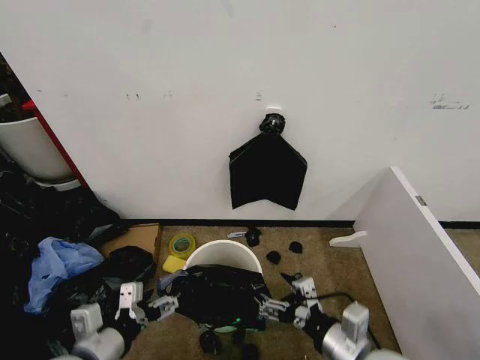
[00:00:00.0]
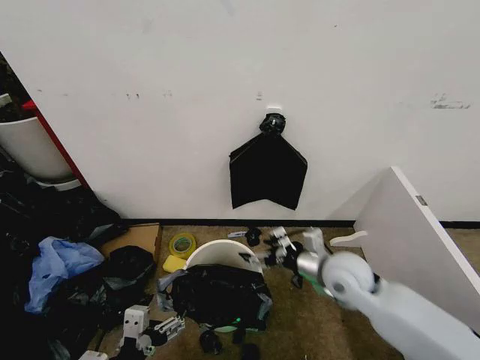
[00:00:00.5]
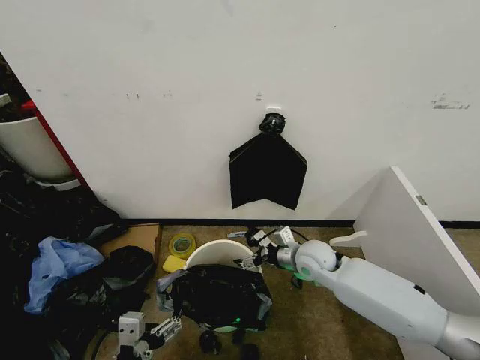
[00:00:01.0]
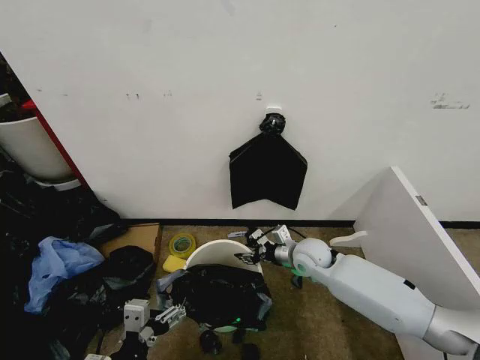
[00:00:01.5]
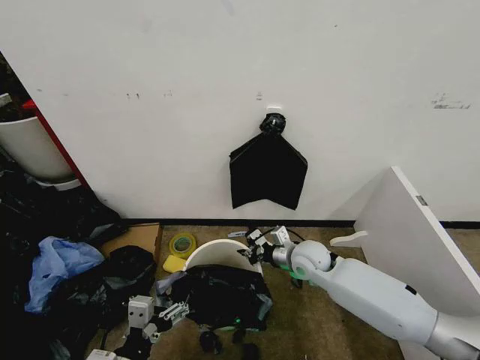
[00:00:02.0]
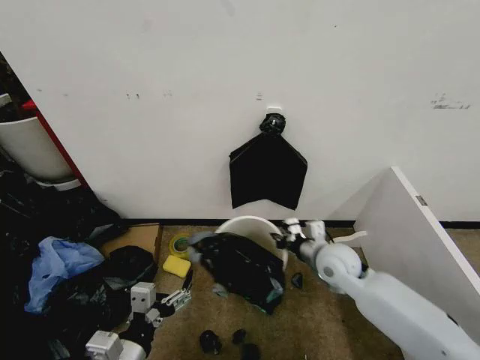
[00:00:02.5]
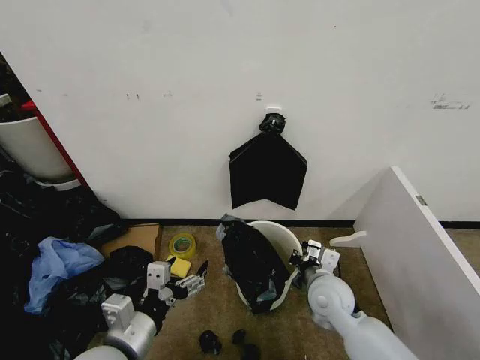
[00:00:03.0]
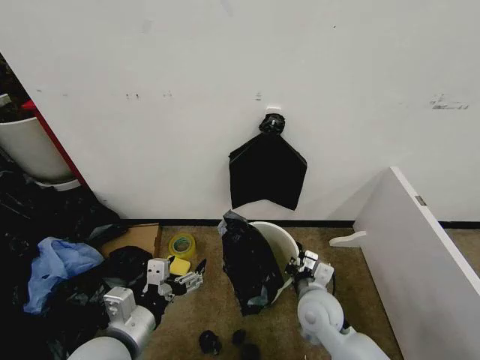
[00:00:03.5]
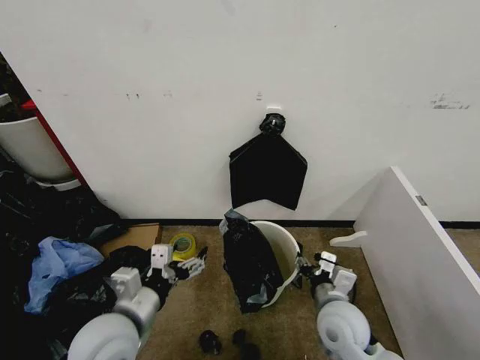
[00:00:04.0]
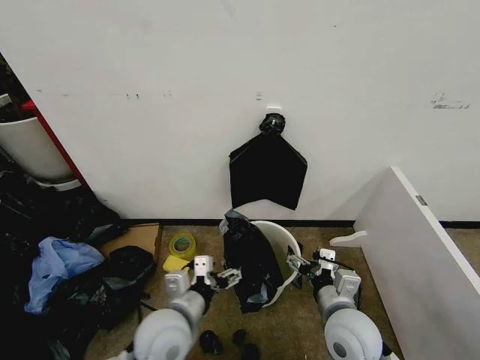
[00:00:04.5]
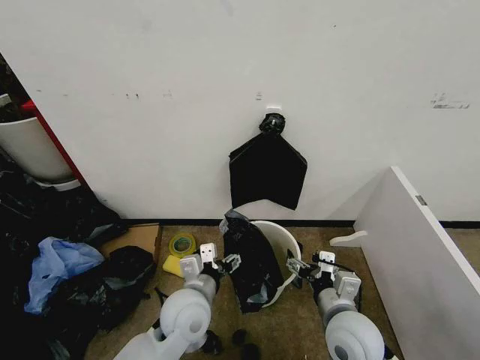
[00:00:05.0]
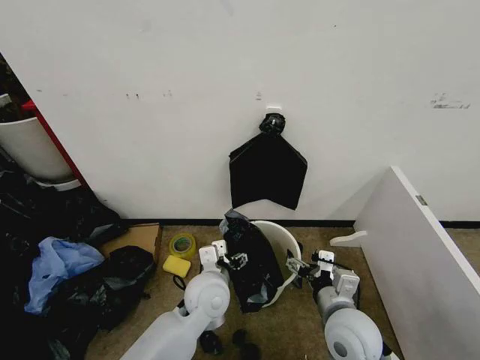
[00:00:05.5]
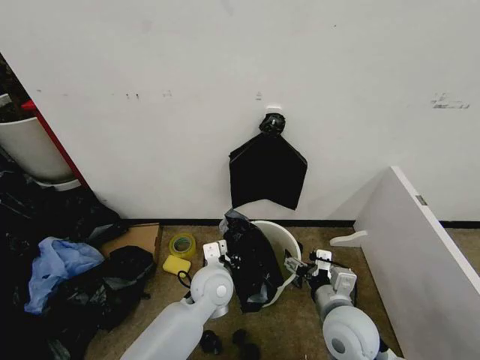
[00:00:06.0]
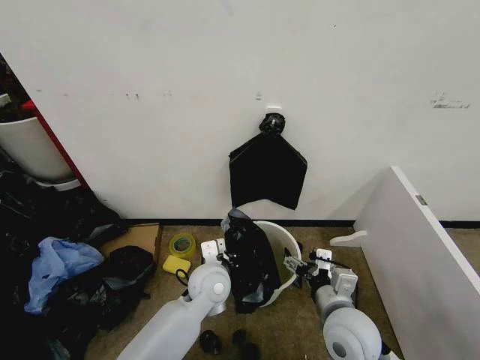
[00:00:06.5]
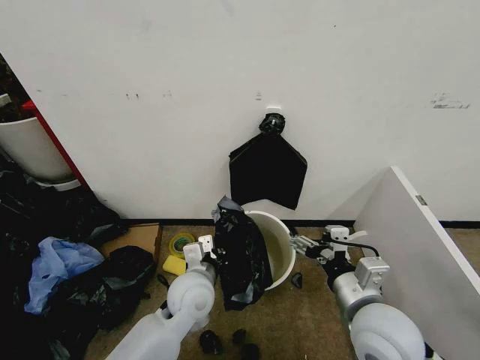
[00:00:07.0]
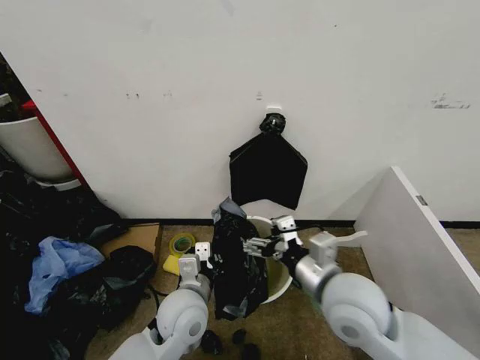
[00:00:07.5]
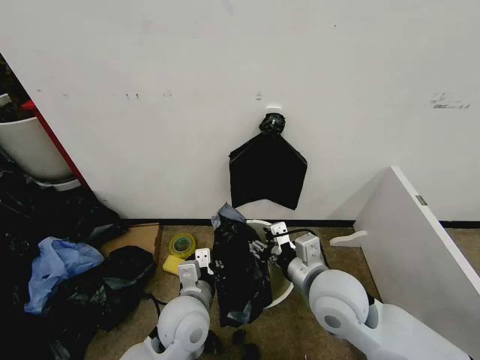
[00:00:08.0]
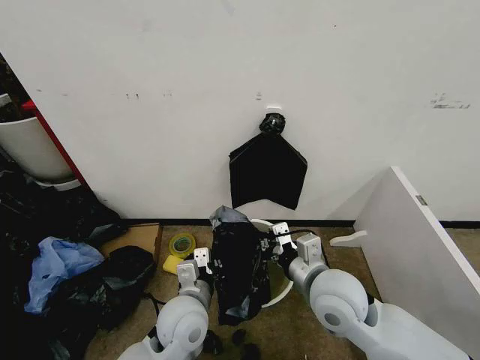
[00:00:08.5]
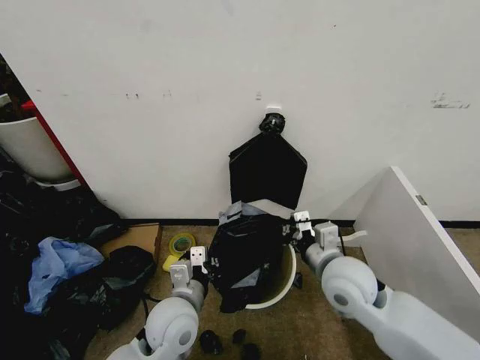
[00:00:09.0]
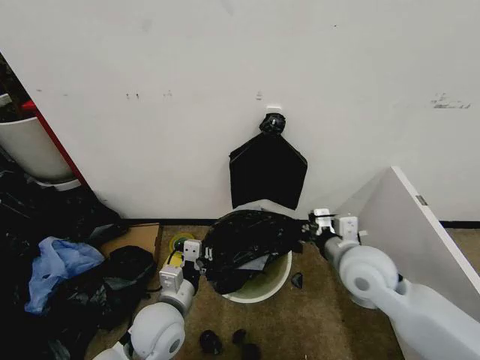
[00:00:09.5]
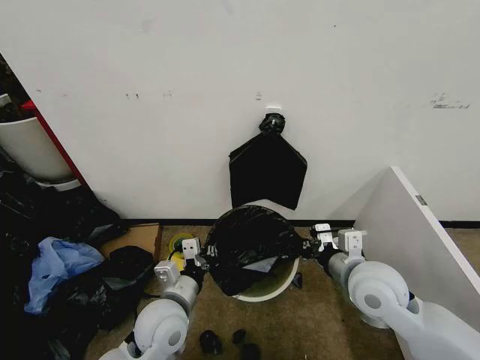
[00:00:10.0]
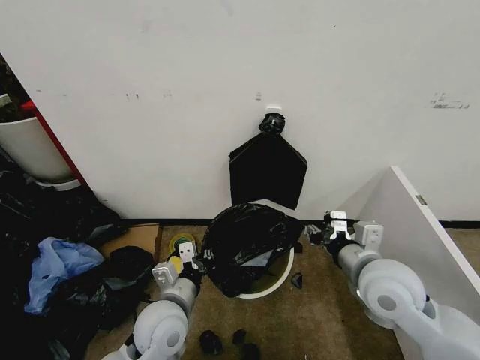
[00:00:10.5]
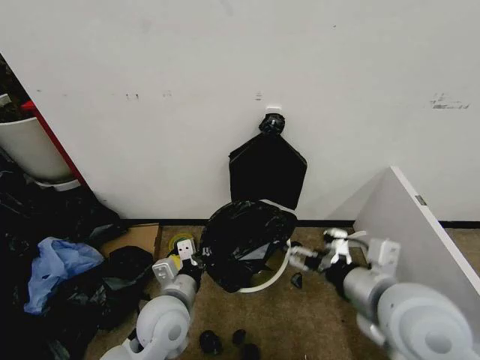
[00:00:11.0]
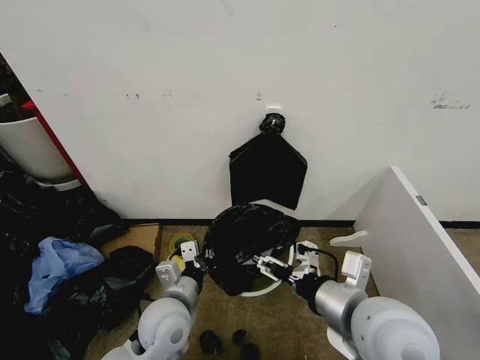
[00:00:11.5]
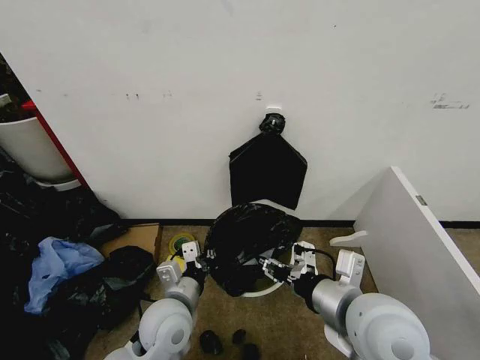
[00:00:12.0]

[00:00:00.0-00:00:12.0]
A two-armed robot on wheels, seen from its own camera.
Task of the whole recording: Place the garbage bag over the trash bin.
00:00:00.0 to 00:00:02.0: The right gripper heads forward, covering approximately 25 cm, and closes. Meanwhile the left gripper goes approximately 5 cm backward.
00:00:02.0 to 00:00:04.0: The right gripper goes roughly 15 cm backward, and opens; the left gripper travels forward and upward by approximately 10 cm.
00:00:04.0 to 00:00:06.0: The left gripper heads to the right, forward and downward, covering approximately 20 cm, and closes. Meanwhile the right gripper opens.
00:00:06.0 to 00:00:08.0: The right gripper goes roughly 10 cm upward, and closes. Meanwhile the left gripper travels backward by about 10 cm, and closes.
00:00:08.0 to 00:00:10.0: The right gripper moves to the right, approximately 10 cm, and closes.
00:00:10.0 to 00:00:12.0: The right gripper is displaced backward, upward and to the left by about 10 cm, and opens up.

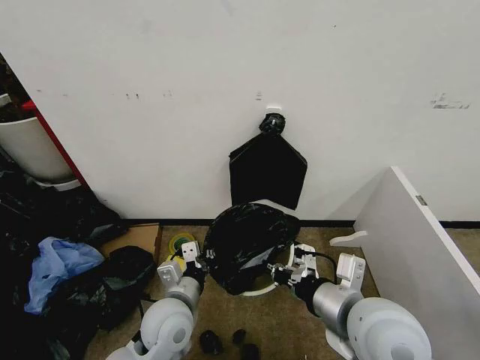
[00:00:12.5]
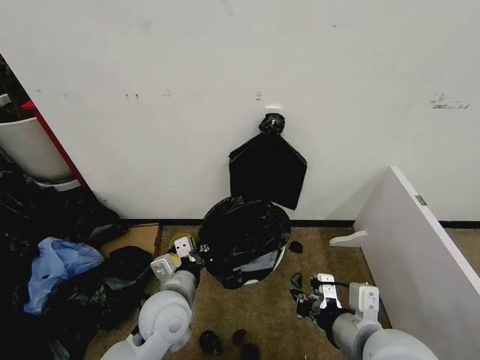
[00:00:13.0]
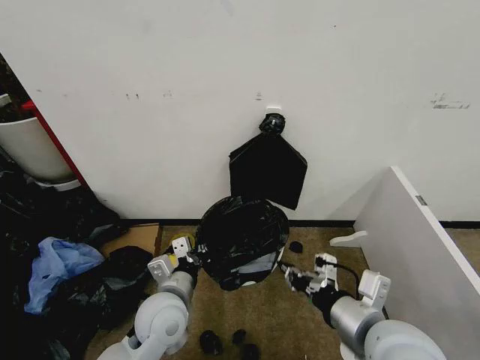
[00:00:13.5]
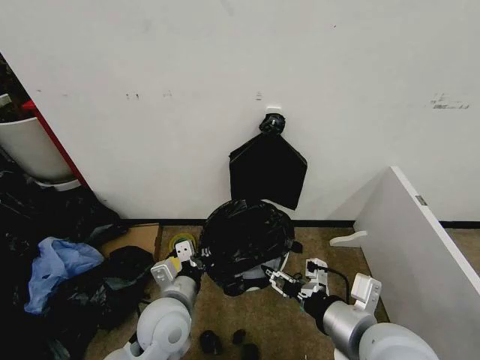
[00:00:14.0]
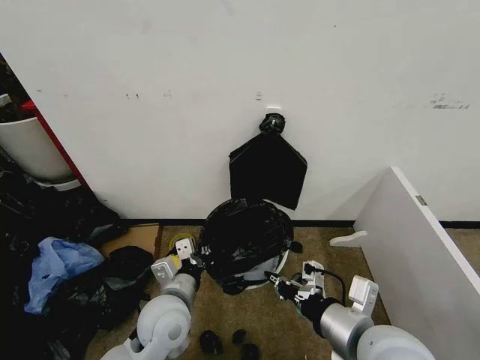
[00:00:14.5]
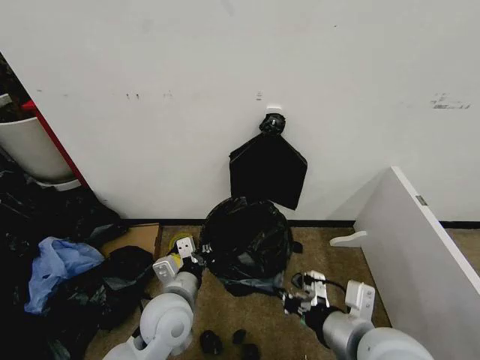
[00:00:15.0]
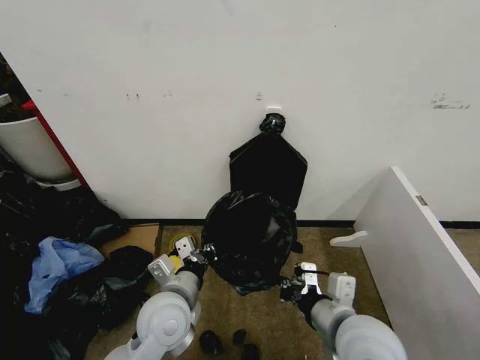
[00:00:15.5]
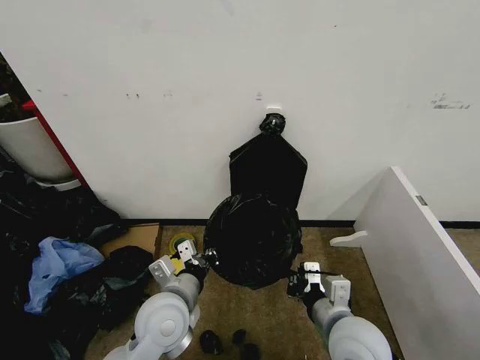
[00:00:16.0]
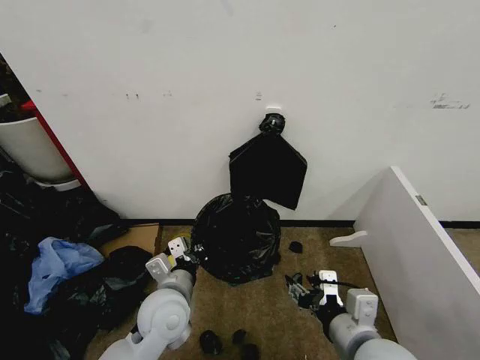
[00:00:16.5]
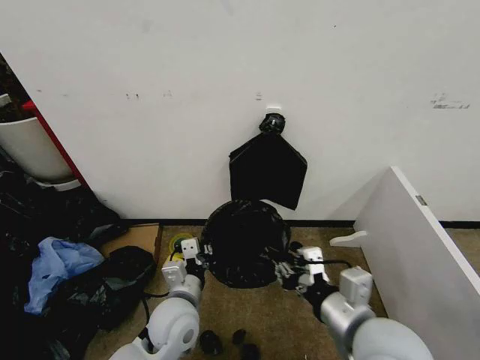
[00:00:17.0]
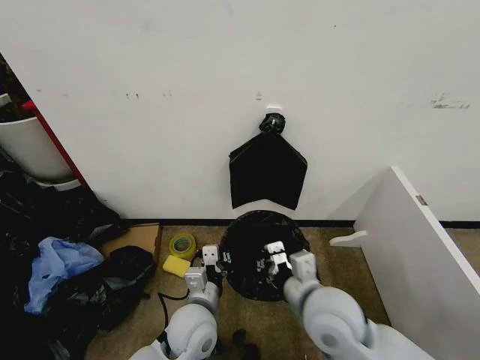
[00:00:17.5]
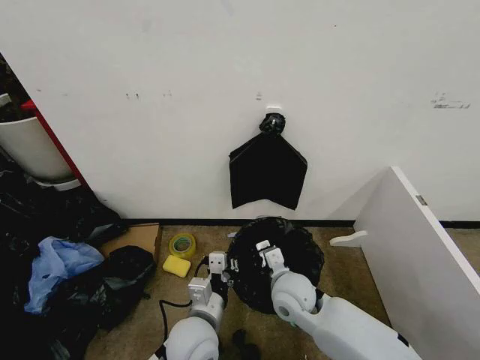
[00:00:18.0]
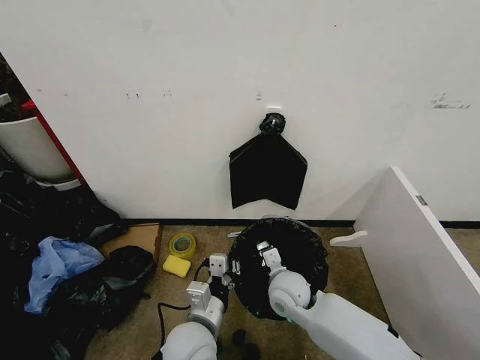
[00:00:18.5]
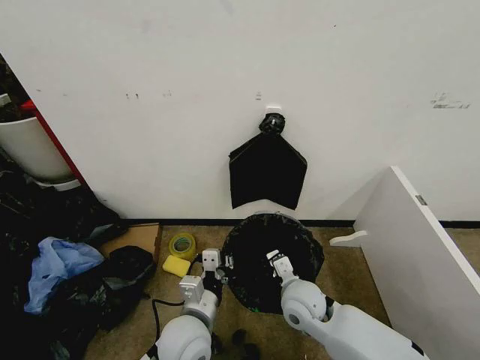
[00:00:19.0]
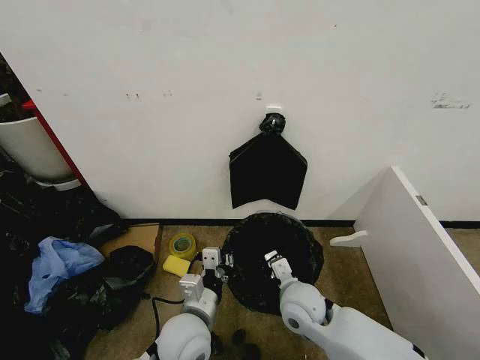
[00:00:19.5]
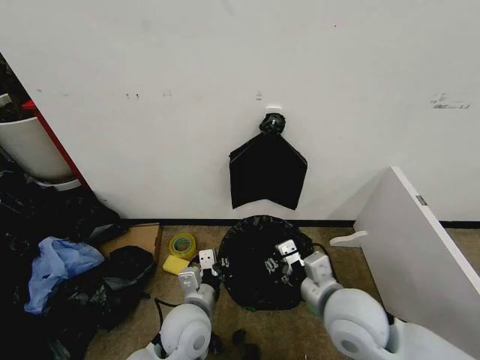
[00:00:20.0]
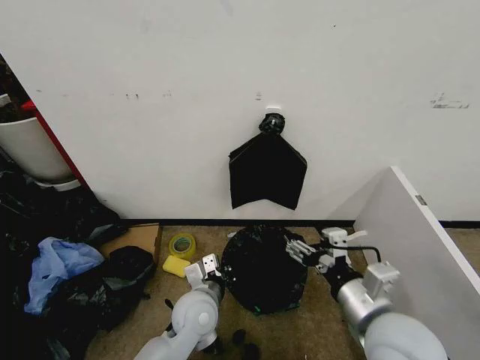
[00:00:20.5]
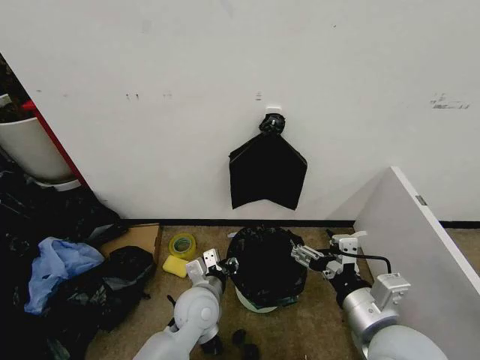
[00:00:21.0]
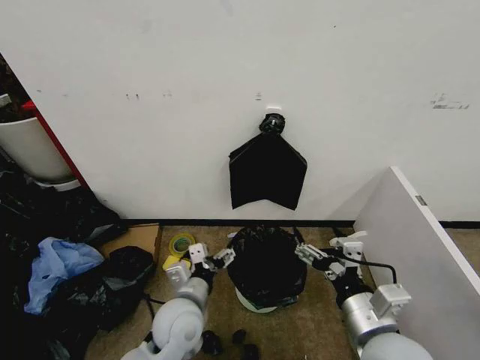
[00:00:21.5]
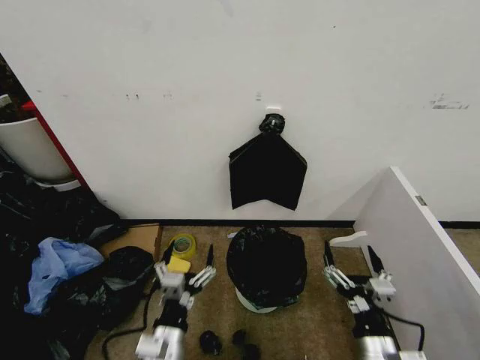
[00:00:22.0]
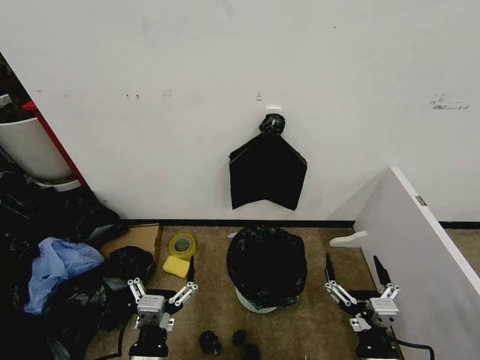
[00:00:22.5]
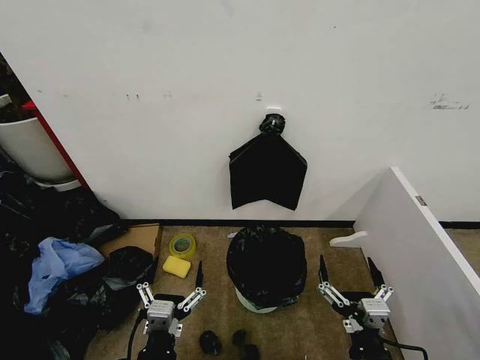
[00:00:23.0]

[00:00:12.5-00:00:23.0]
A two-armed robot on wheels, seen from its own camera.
Task of the whole recording: Place the garbage bag over the trash bin.
00:00:12.5 to 00:00:14.5: The right gripper opens, then closes once more.
00:00:14.5 to 00:00:16.5: The right gripper opens up.
00:00:16.5 to 00:00:19.0: The right gripper shifts some 20 cm forward, downward and to the left, and closes its fingers. The left gripper ends up about 5 cm from where it was.
00:00:19.0 to 00:00:21.0: The right gripper is displaced upward, backward and to the right by approximately 20 cm, and opens its fingers, while the left gripper heads forward, covering some 5 cm, and opens its fingers.
00:00:21.0 to 00:00:23.0: The left gripper is displaced backward by some 20 cm, and opens its fingers. The right gripper shifts some 15 cm downward and backward.
